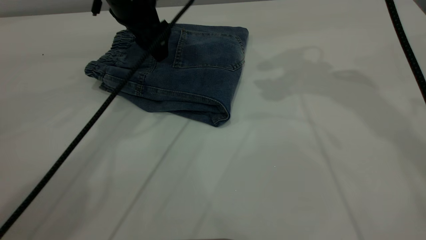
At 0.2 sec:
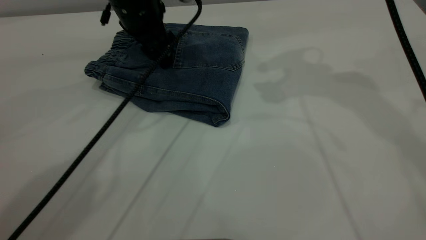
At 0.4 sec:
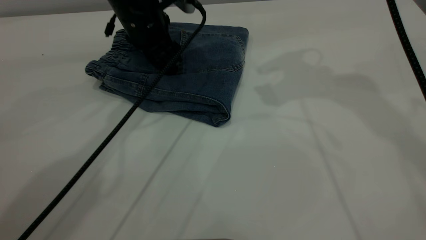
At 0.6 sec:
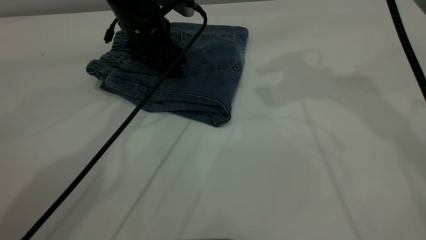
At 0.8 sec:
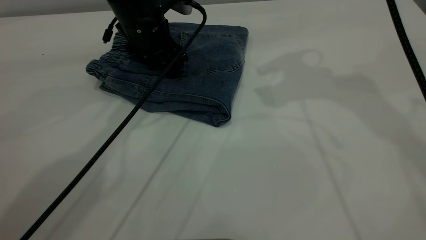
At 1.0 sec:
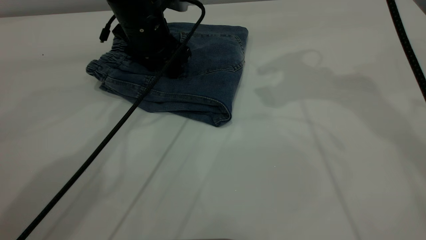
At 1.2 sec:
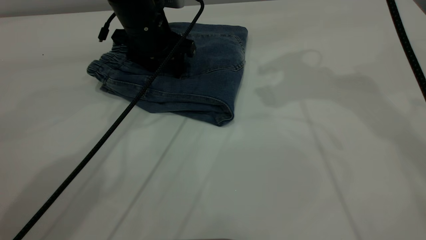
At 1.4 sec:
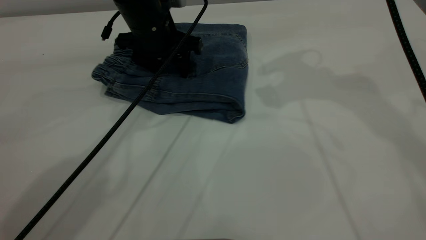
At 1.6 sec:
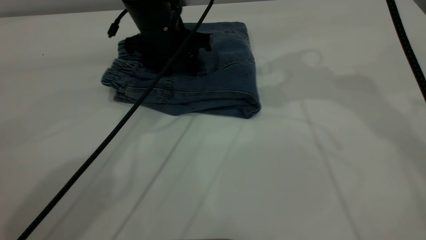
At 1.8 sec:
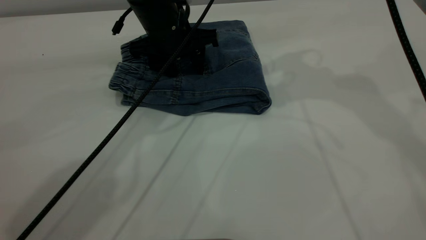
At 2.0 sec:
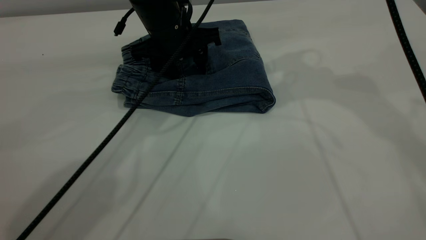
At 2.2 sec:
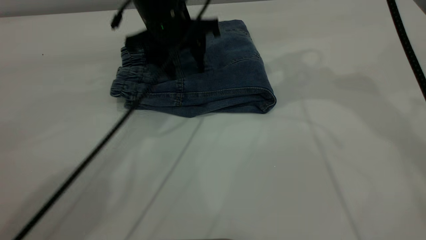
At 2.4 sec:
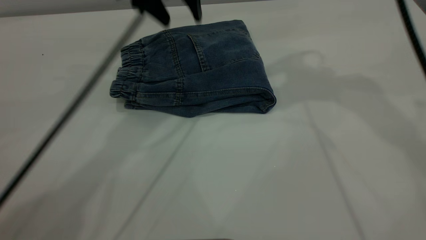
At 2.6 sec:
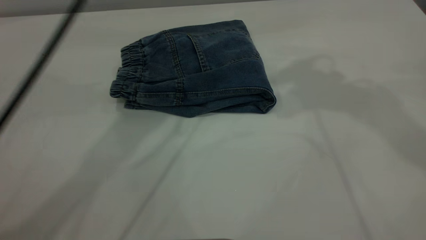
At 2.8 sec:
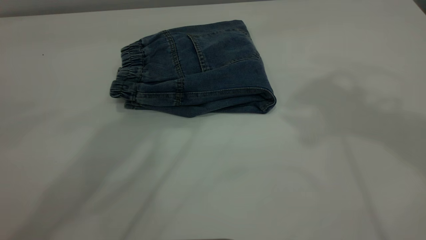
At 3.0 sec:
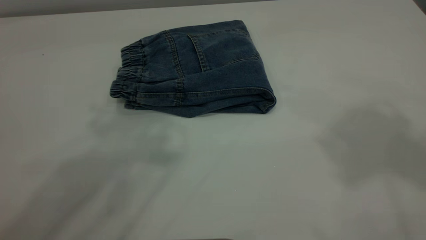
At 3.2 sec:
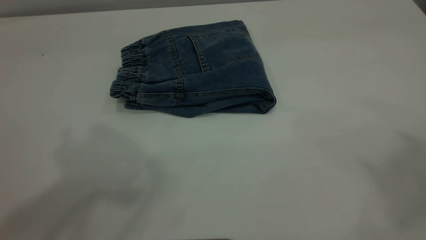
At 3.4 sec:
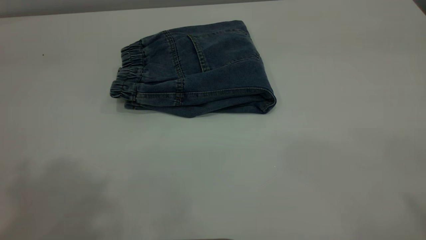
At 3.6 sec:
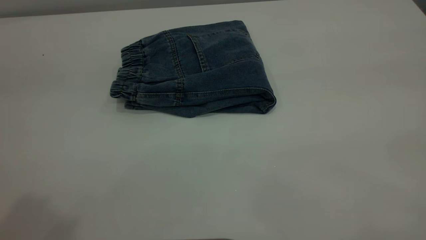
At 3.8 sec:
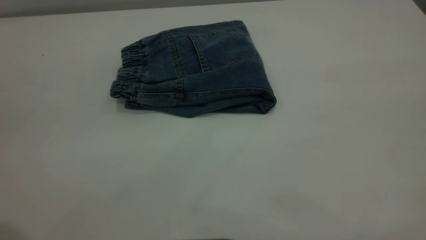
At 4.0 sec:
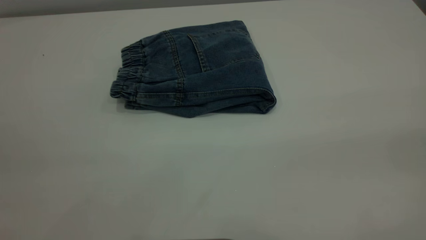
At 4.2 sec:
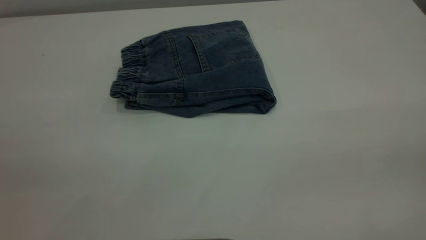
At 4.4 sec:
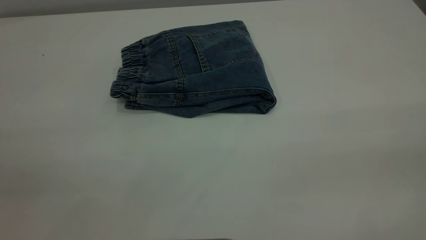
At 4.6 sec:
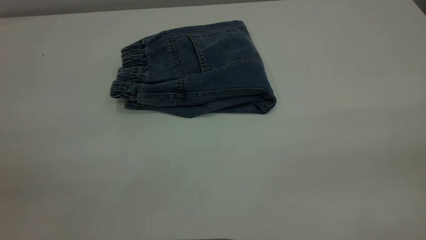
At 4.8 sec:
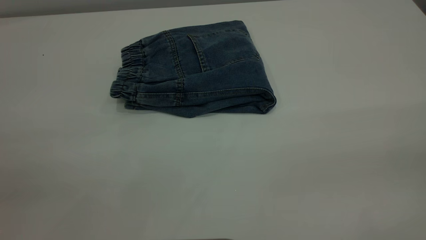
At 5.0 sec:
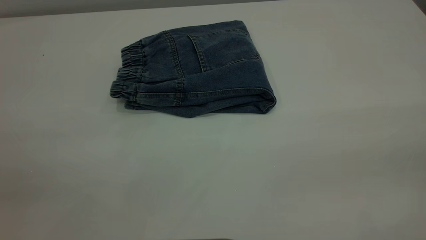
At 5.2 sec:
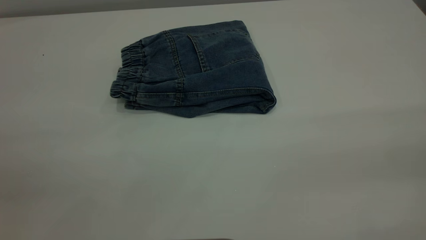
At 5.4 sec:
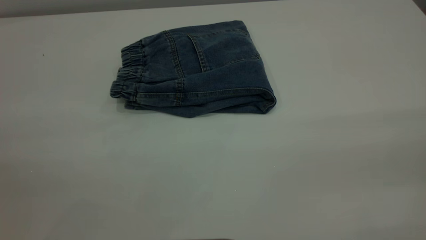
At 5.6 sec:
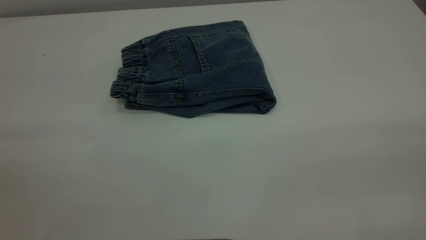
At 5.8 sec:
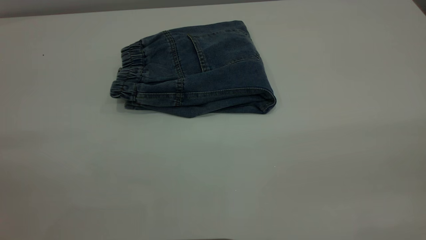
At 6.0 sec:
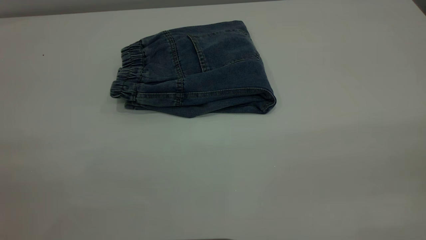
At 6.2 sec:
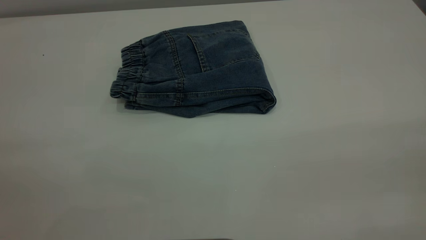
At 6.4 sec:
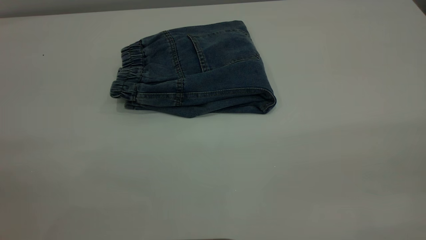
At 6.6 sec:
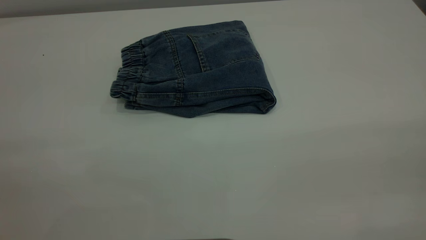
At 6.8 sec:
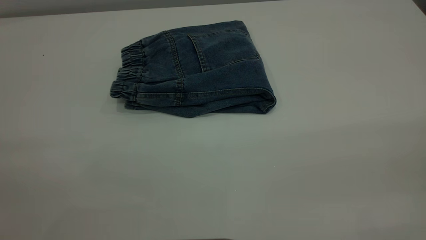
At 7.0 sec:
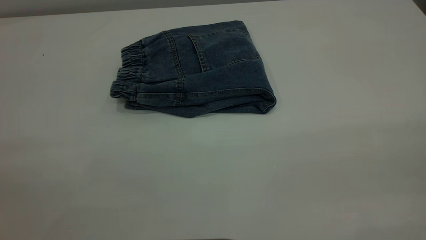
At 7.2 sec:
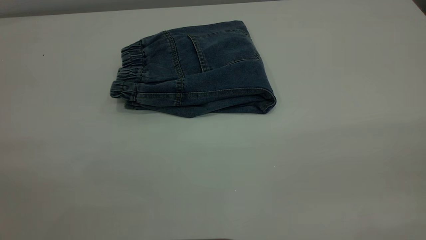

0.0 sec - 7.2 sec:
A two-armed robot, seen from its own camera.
0.0 sec - 1.4 sec: The left gripper is displaced downward by approximately 5 cm.
1.4 sec - 2.8 sec: The left gripper heads upward, covering roughly 30 cm; the right gripper heads upward and backward, covering approximately 20 cm.
5.8 sec - 7.2 sec: The two grippers keep their place.
